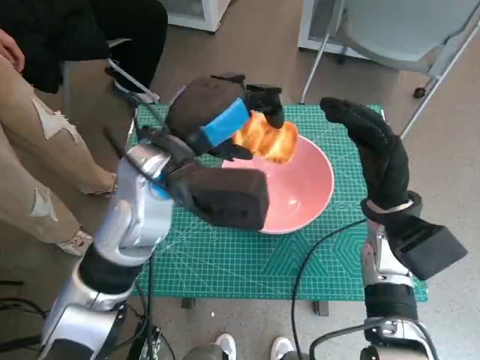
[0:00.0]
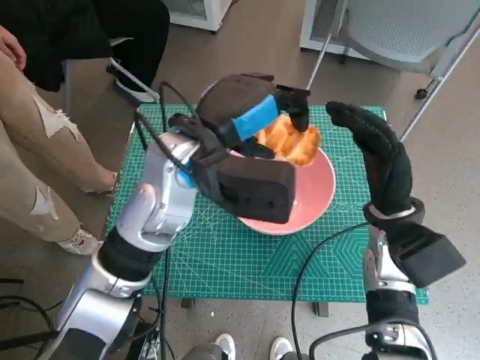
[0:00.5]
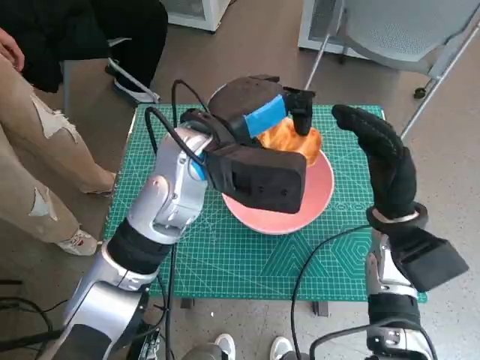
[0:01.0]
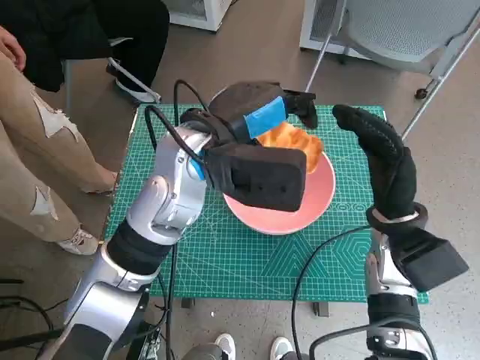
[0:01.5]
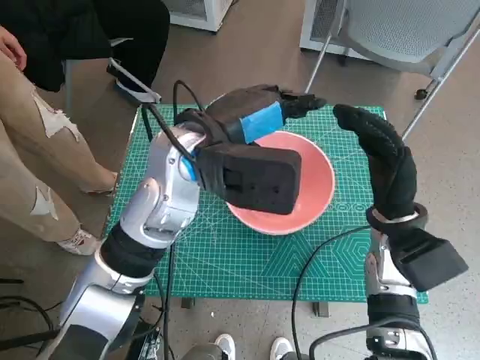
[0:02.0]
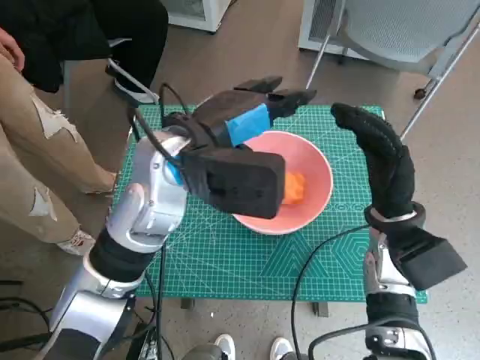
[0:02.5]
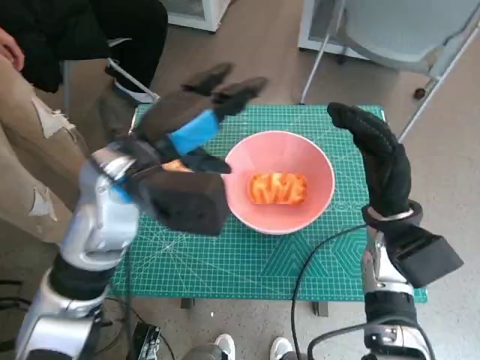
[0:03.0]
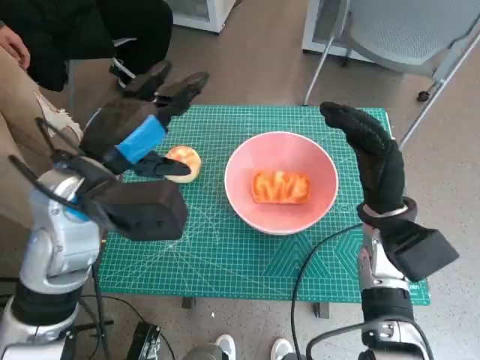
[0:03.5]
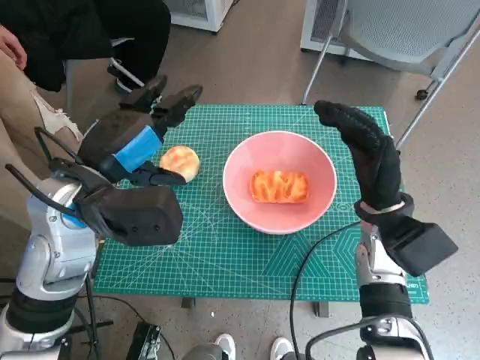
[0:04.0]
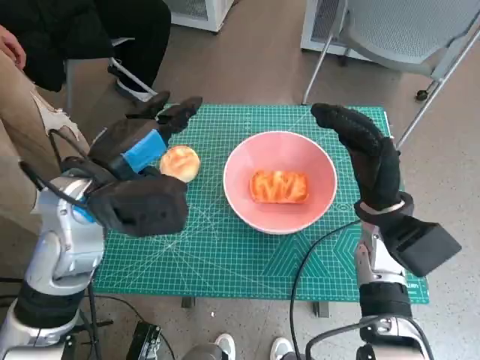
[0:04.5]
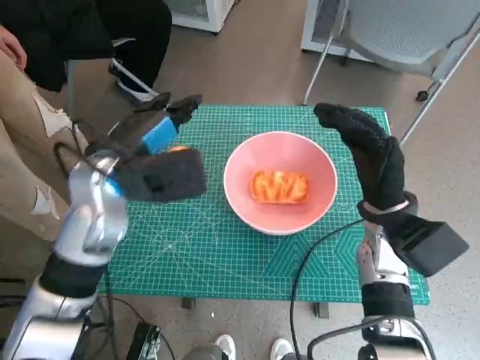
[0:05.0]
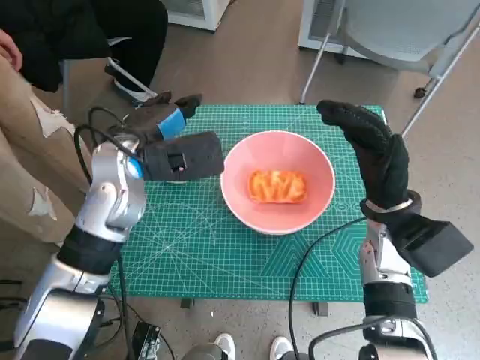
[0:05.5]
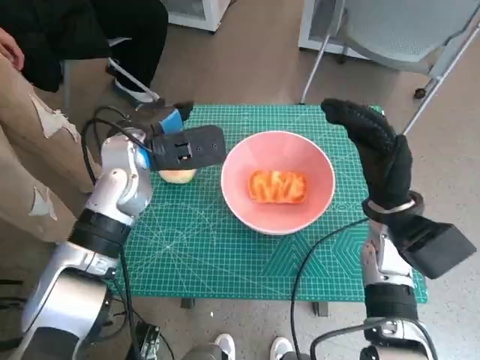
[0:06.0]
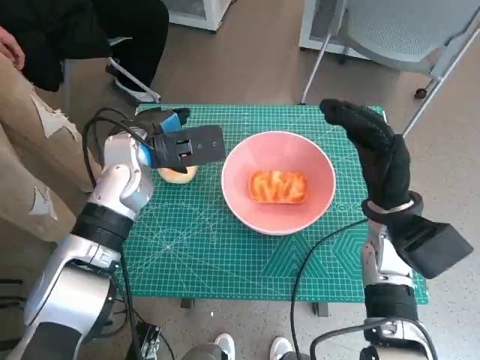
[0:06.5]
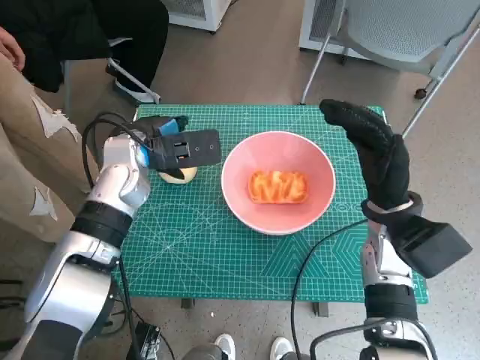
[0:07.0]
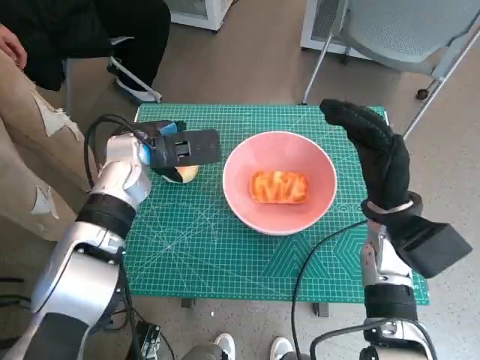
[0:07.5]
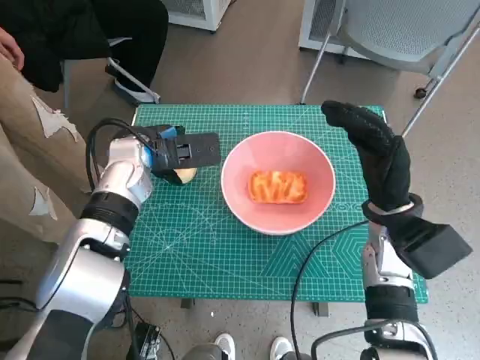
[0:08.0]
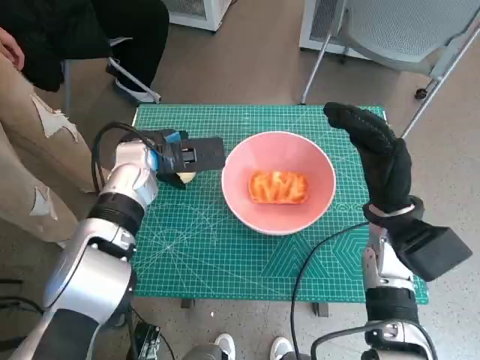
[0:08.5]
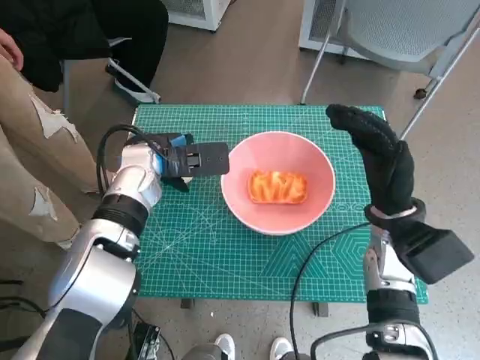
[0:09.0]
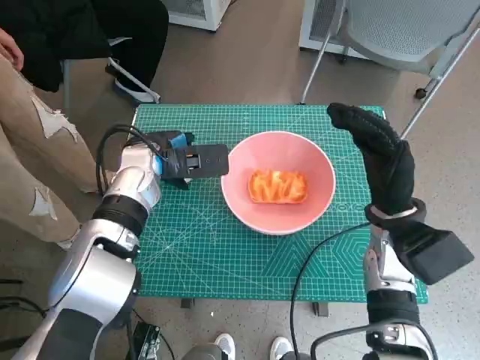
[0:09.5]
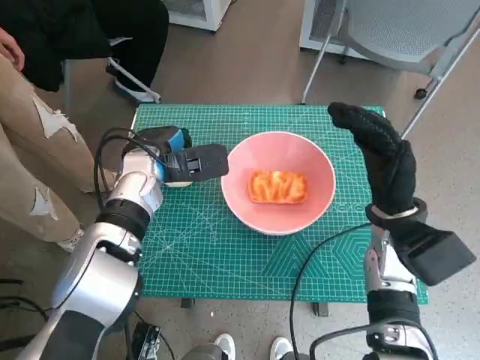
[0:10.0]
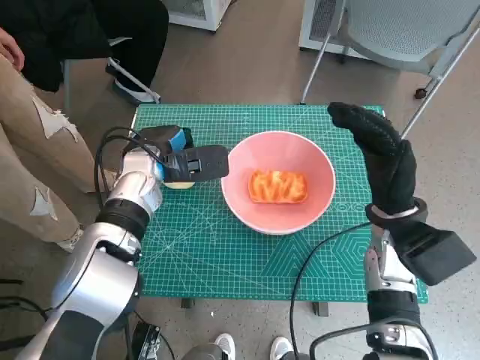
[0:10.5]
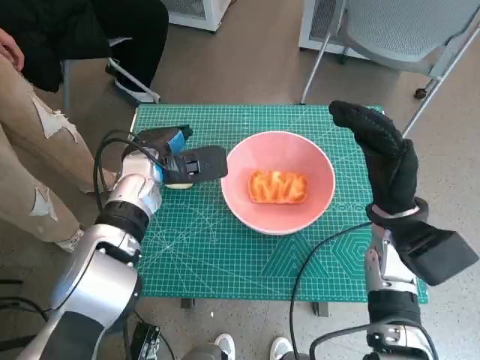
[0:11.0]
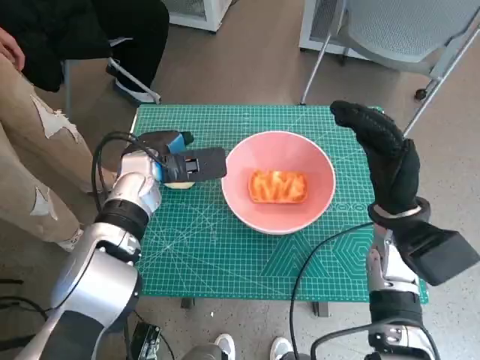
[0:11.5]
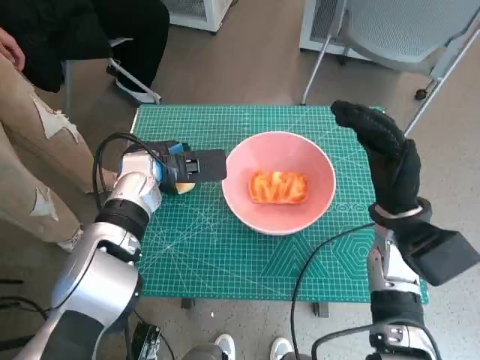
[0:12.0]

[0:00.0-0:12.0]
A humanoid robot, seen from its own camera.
Step, 0:00.0 to 0:02.0: Place the long bread in pink bowl with left hand.
0:02.0 to 0:04.0: The left hand travels to the left and backward by approximately 10 cm.
0:04.0 to 0:06.0: The left hand is displaced forward by about 10 cm.
0:06.0 to 0:10.0: There are only small adjustments of the hands.
0:10.0 to 0:12.0: The hands stay close to where they were, moving slightly.

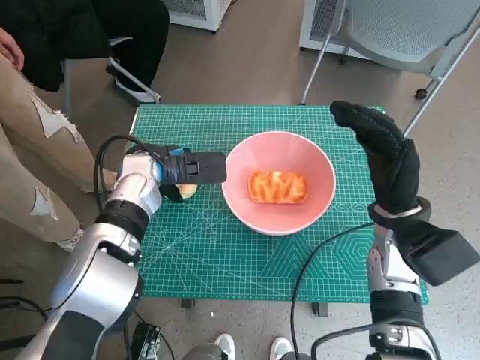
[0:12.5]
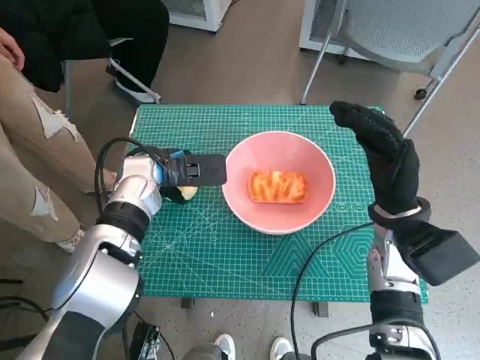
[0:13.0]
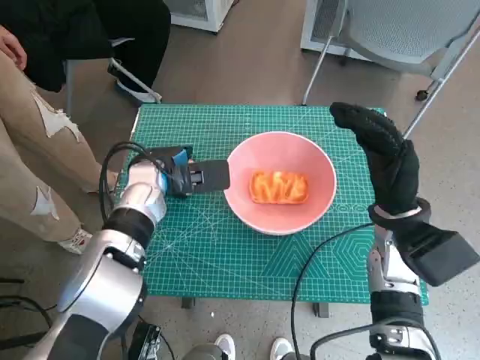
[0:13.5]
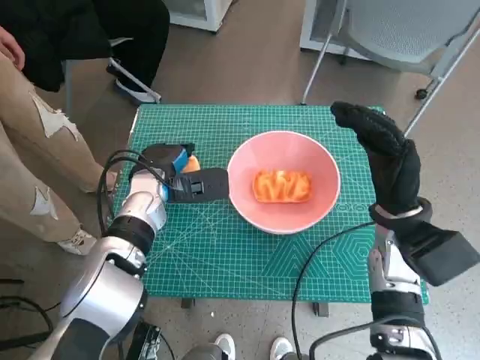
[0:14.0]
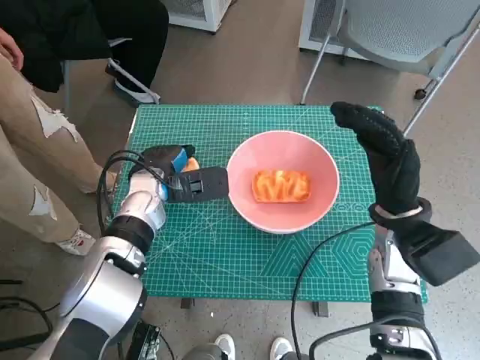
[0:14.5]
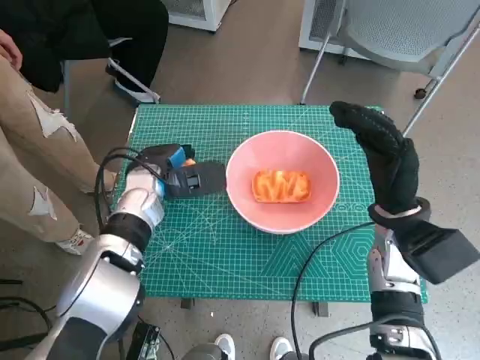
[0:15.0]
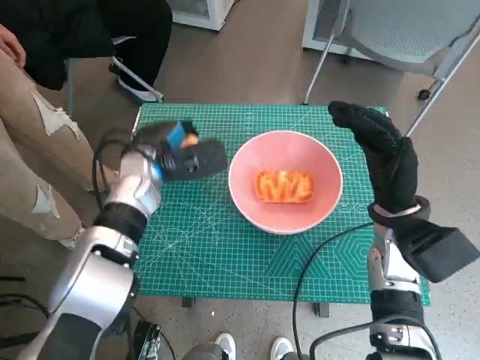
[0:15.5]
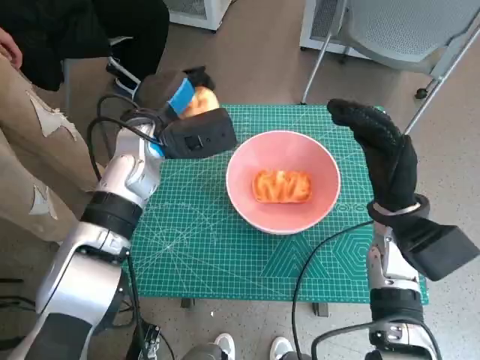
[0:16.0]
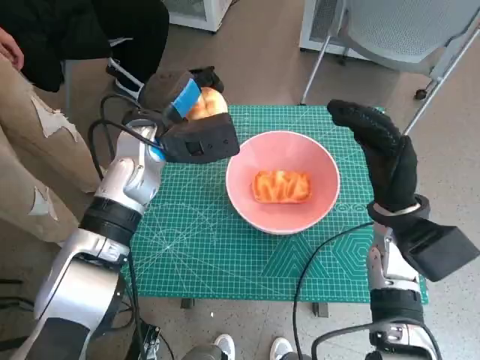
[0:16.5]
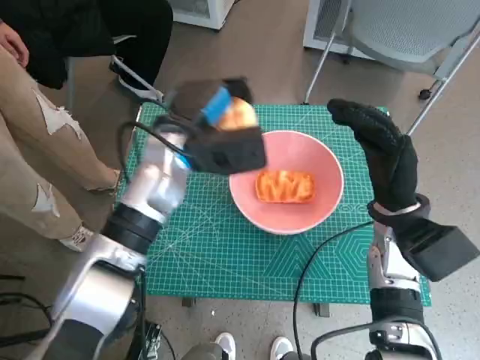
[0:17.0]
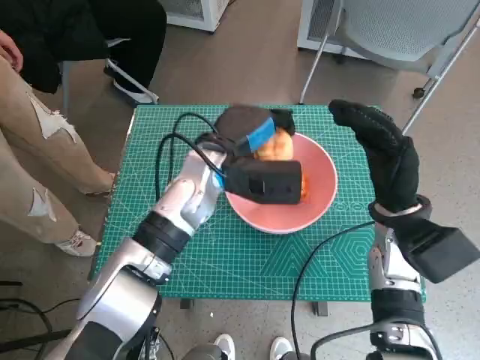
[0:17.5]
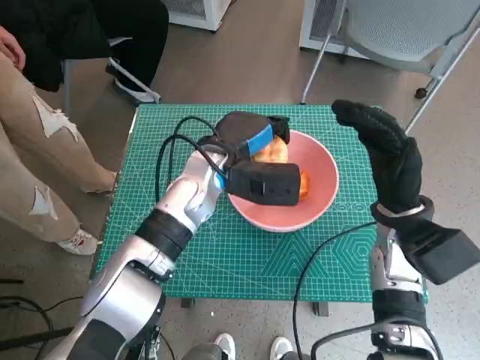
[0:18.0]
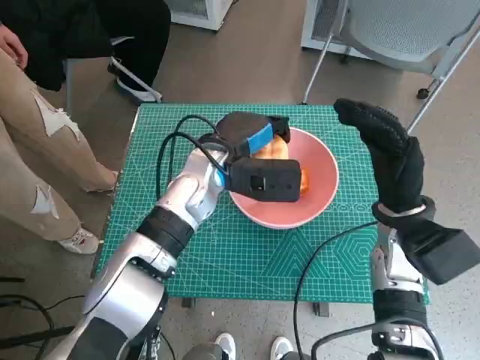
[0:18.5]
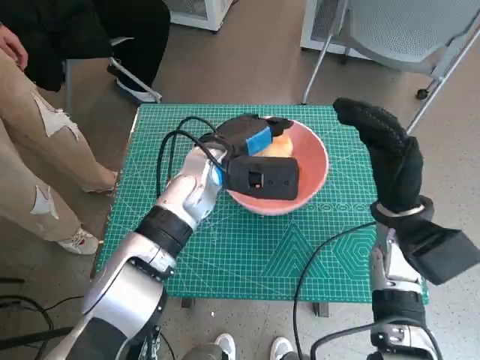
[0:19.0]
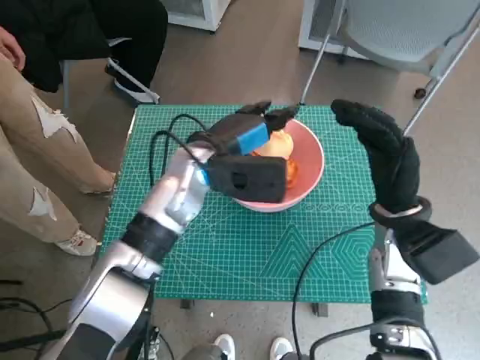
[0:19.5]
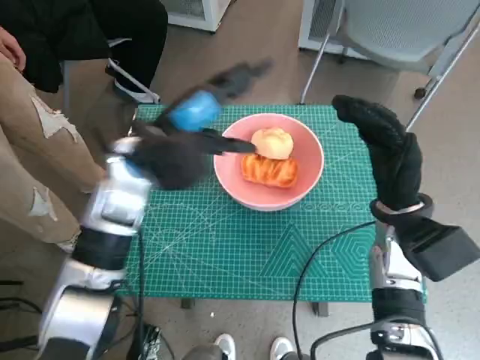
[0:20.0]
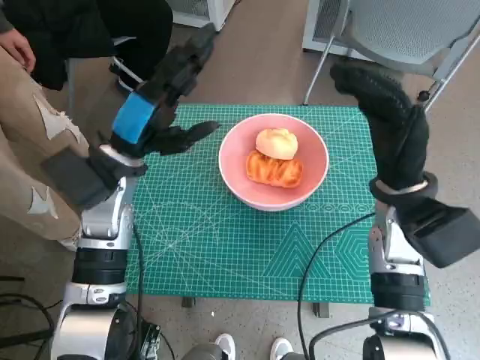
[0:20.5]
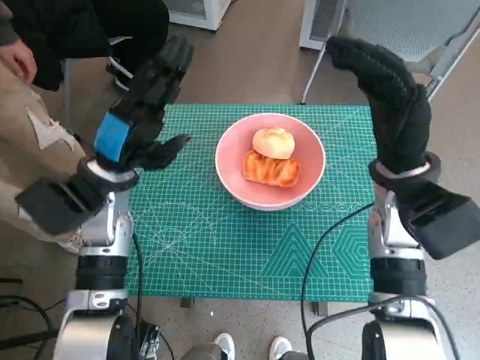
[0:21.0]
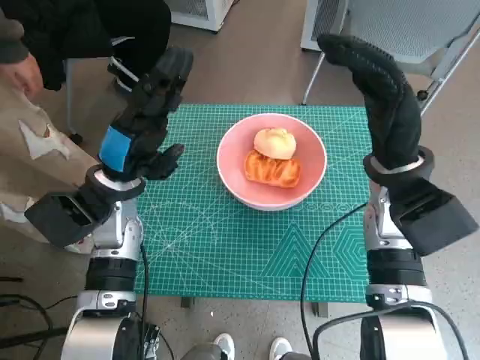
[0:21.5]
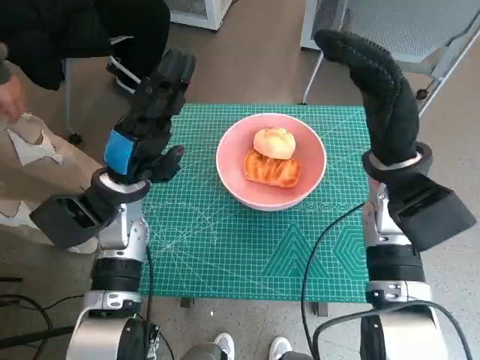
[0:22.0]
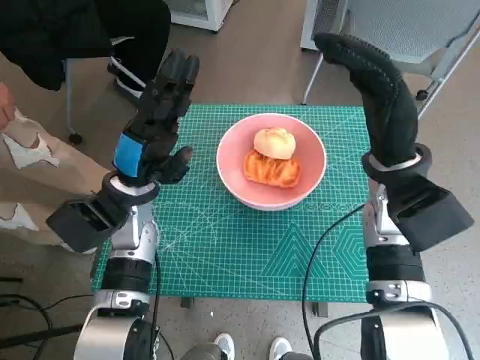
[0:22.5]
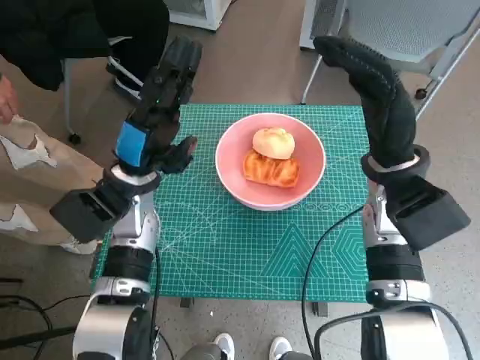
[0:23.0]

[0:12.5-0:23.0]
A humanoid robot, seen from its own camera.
Step, 0:12.5 to 0:15.0: Grasp the round bread with left hand.
Step, 0:15.5 to 0:19.5: Place the round bread in pink bowl with left hand.
0:12.5 to 0:14.5: There are only small adjustments of the hands.
0:14.5 to 0:16.5: The left hand heads upward, covering some 10 cm.
0:16.5 to 0:19.0: The left hand travels to the right by some 10 cm.
0:19.0 to 0:21.0: The right hand heads upward, covering some 5 cm, while the left hand shifts approximately 15 cm to the left.
